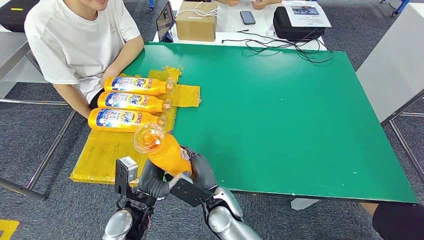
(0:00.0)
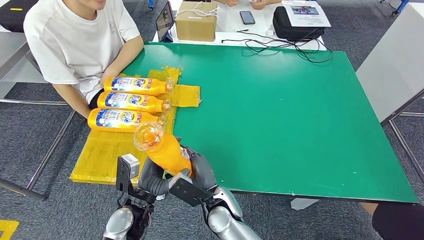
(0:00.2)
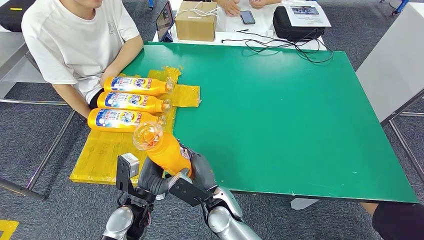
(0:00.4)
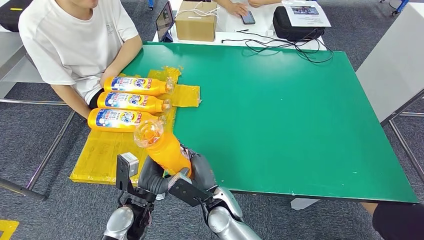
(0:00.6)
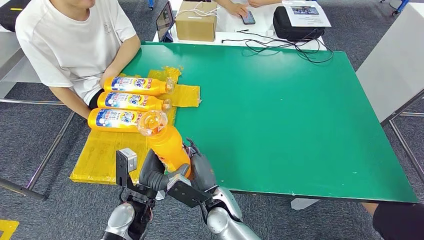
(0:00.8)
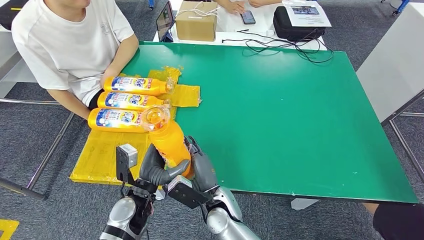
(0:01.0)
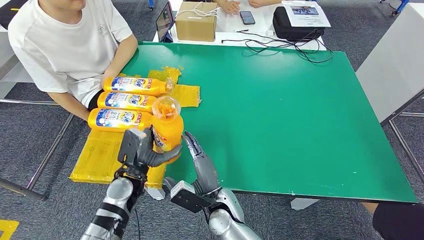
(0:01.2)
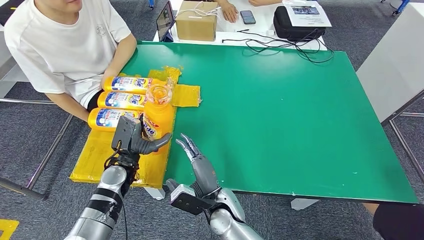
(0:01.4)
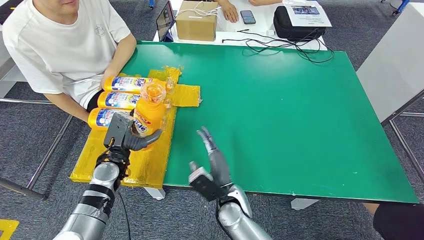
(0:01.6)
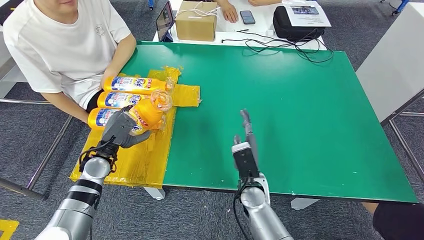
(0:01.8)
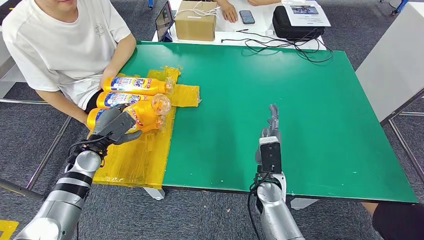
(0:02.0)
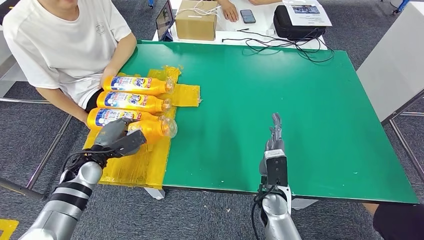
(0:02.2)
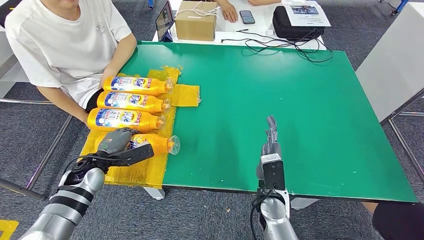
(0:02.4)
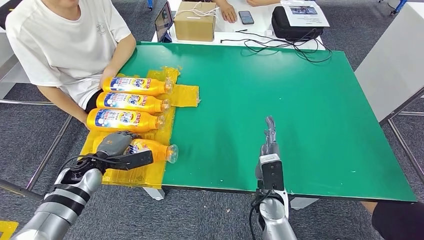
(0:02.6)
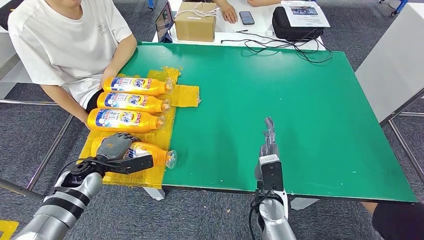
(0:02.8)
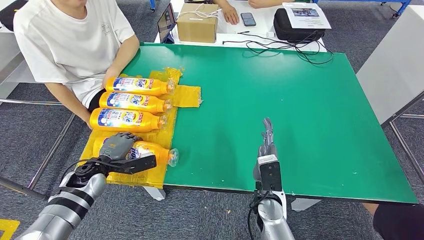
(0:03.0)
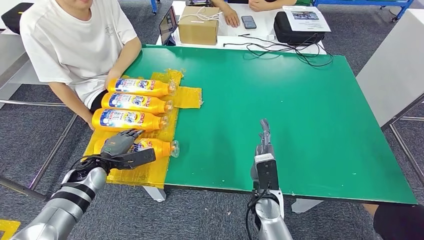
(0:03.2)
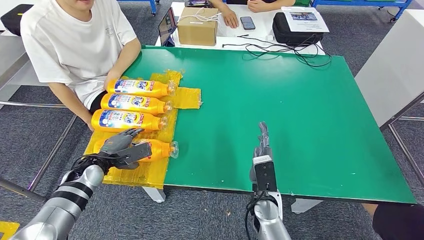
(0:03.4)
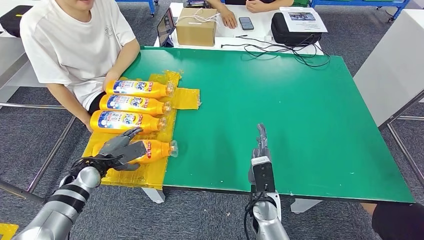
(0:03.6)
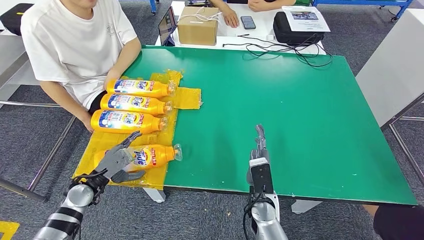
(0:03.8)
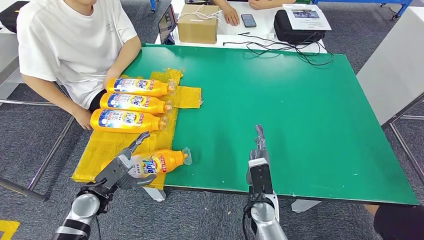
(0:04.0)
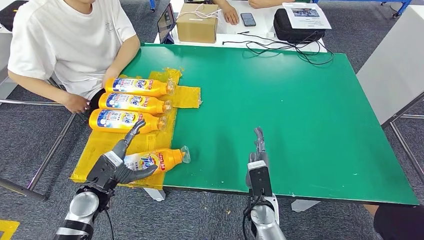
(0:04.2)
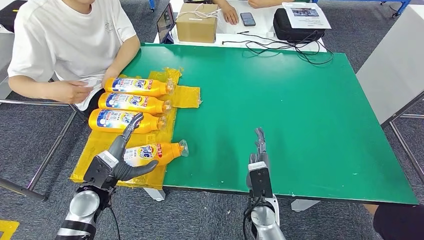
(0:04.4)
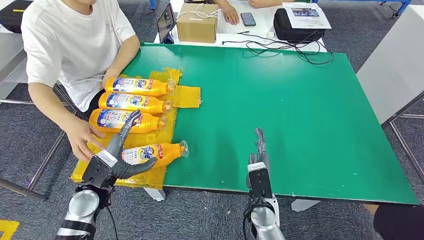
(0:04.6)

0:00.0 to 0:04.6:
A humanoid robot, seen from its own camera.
Step, 0:00.4 to 0:04.4: Flip the fast-moving consumer goods bottle to the front side.
0:03.0 to 0:04.6: The left hand travels to the right and backward by some 10 cm.

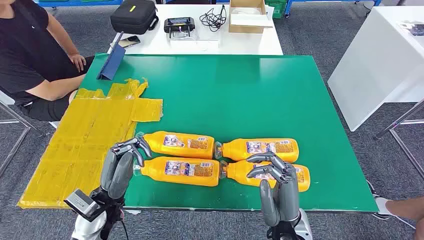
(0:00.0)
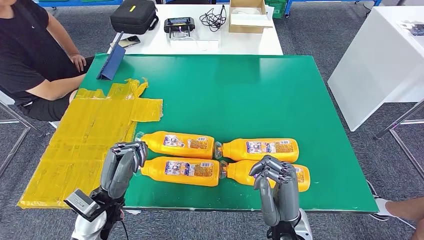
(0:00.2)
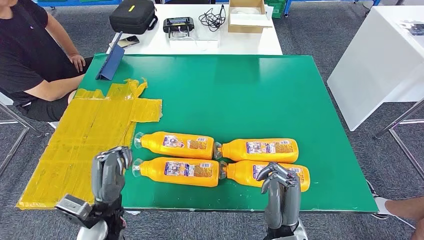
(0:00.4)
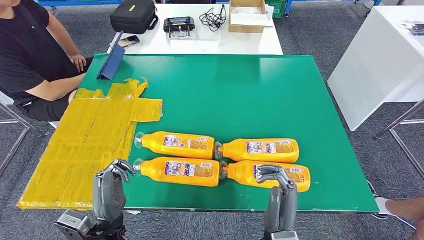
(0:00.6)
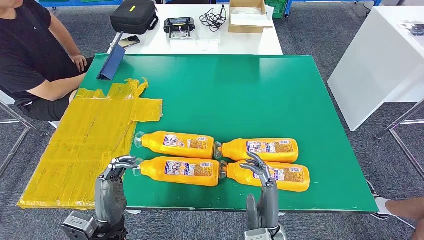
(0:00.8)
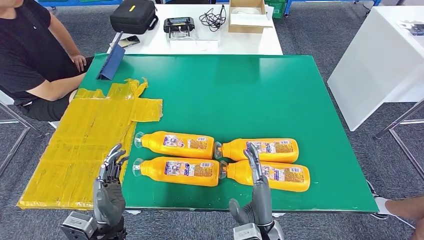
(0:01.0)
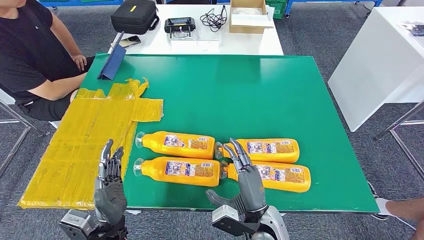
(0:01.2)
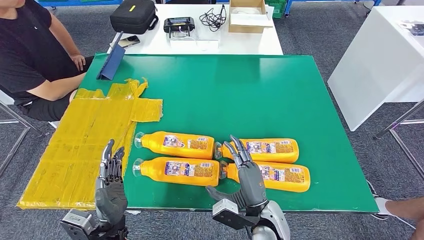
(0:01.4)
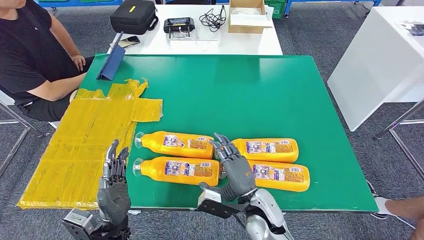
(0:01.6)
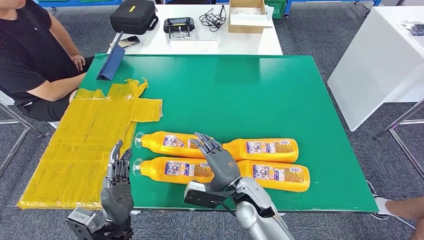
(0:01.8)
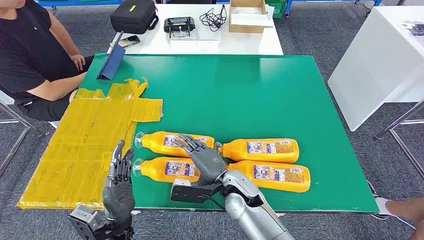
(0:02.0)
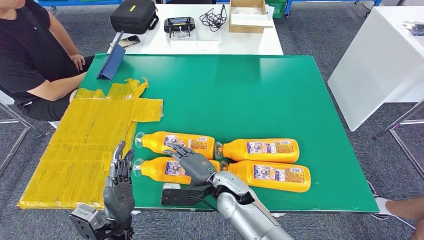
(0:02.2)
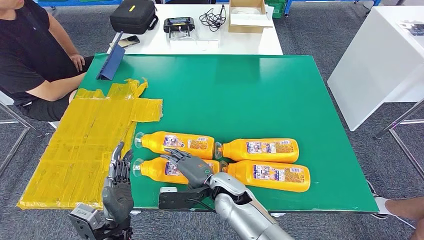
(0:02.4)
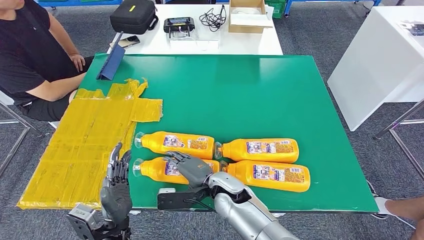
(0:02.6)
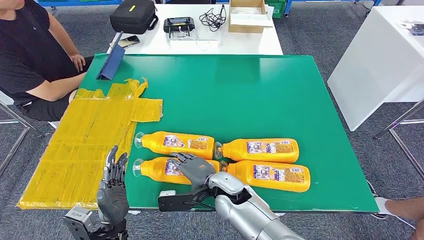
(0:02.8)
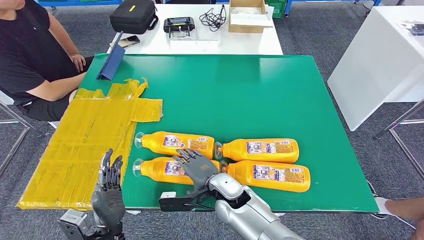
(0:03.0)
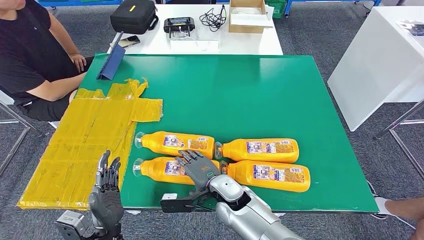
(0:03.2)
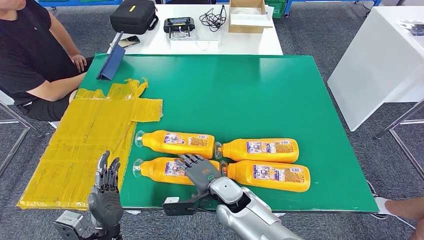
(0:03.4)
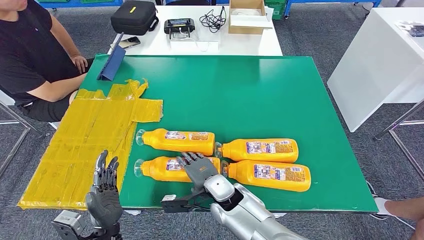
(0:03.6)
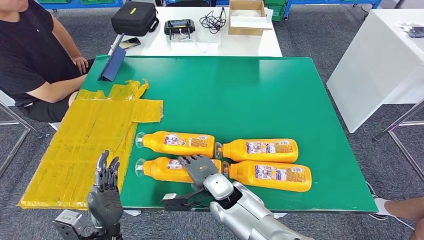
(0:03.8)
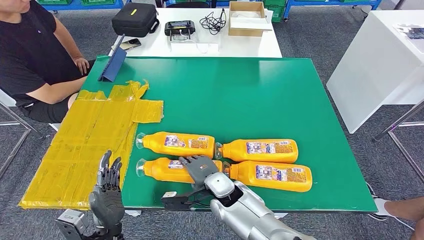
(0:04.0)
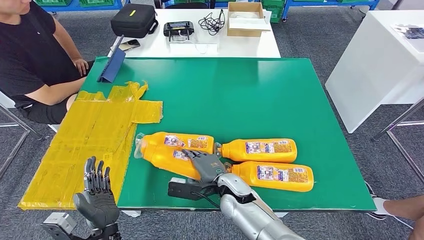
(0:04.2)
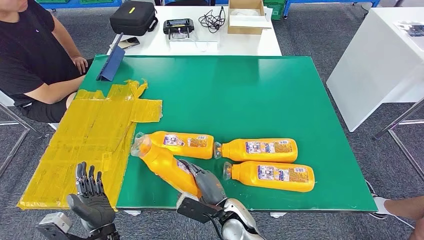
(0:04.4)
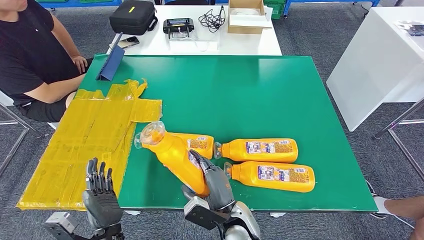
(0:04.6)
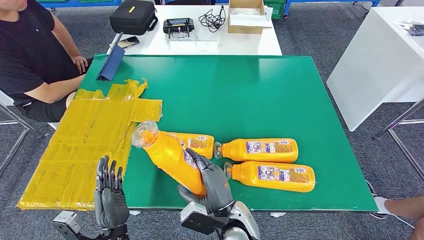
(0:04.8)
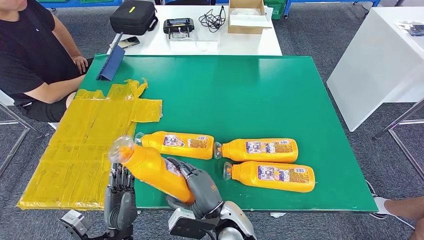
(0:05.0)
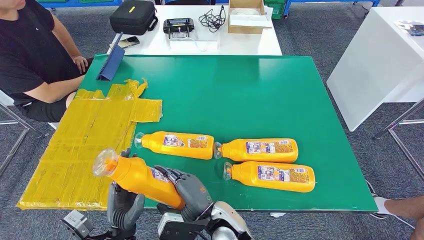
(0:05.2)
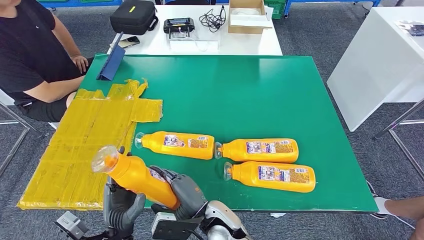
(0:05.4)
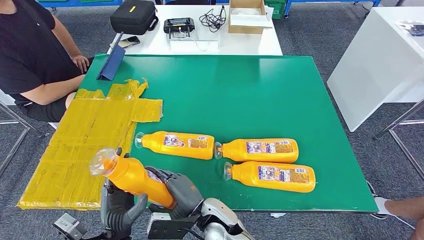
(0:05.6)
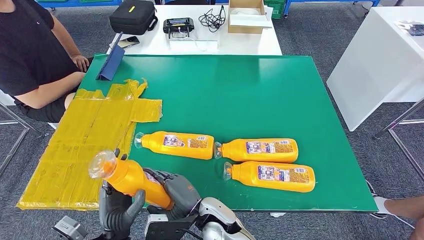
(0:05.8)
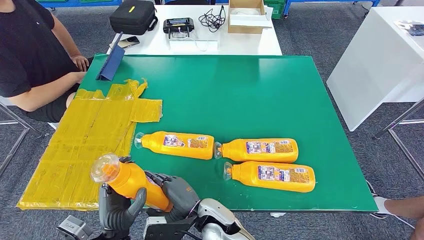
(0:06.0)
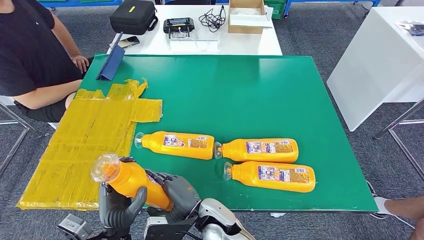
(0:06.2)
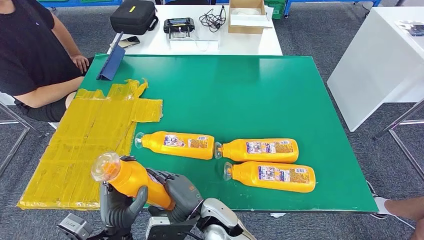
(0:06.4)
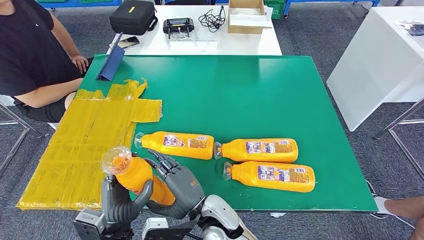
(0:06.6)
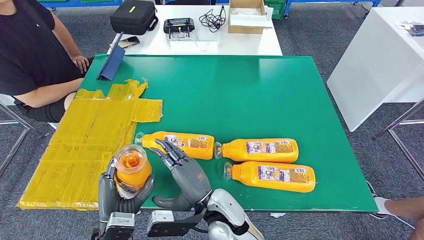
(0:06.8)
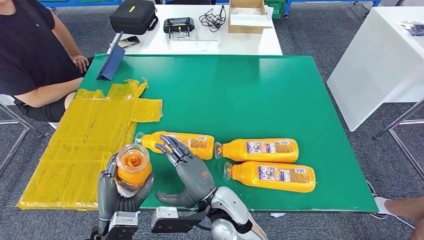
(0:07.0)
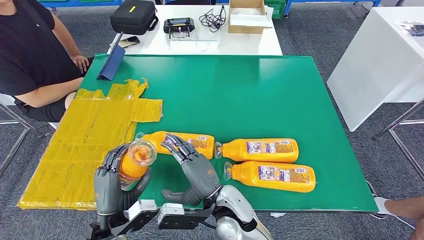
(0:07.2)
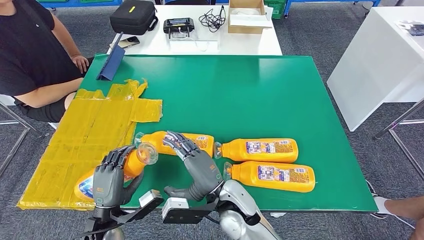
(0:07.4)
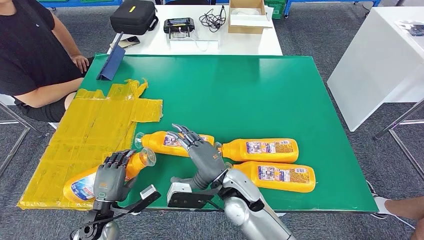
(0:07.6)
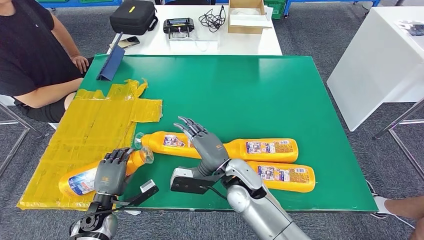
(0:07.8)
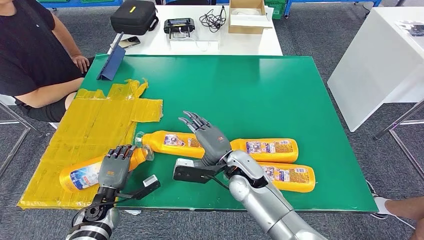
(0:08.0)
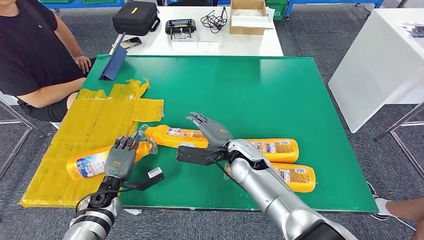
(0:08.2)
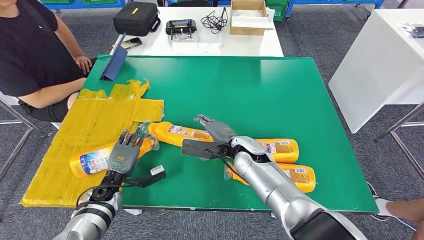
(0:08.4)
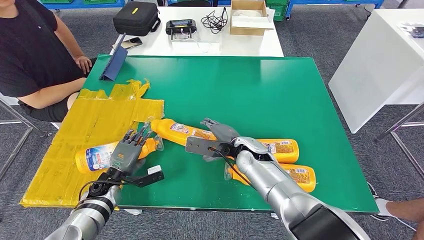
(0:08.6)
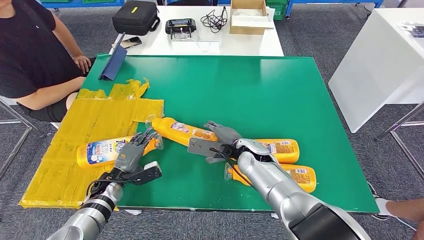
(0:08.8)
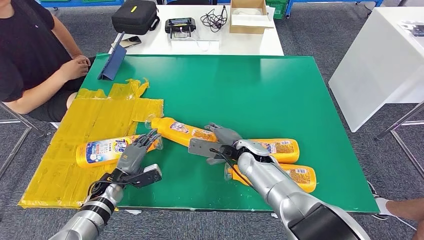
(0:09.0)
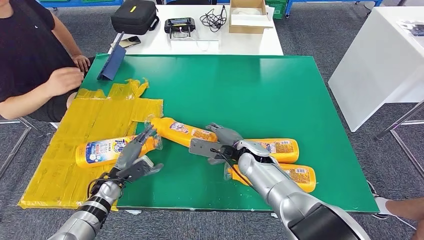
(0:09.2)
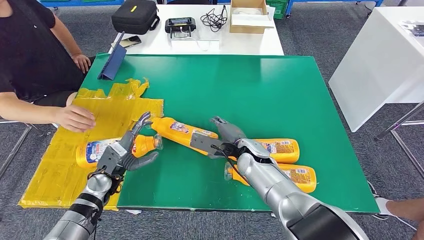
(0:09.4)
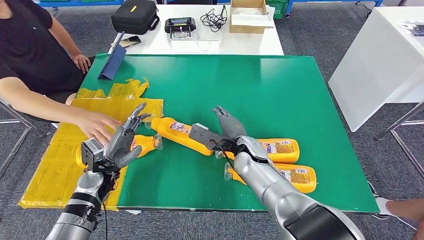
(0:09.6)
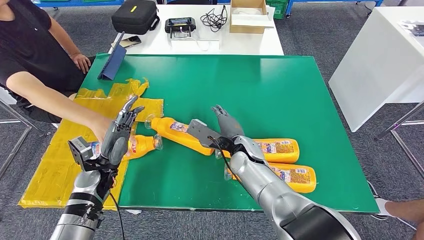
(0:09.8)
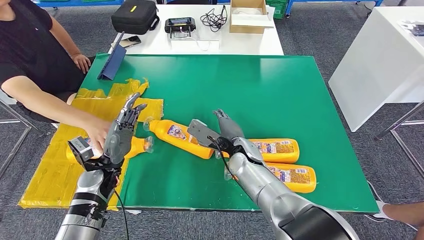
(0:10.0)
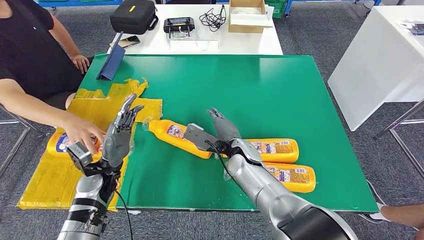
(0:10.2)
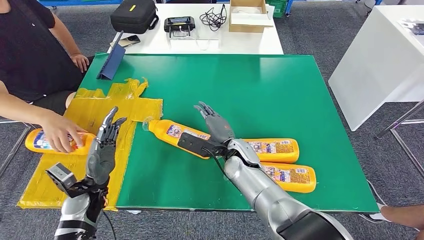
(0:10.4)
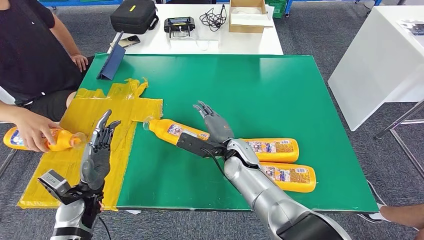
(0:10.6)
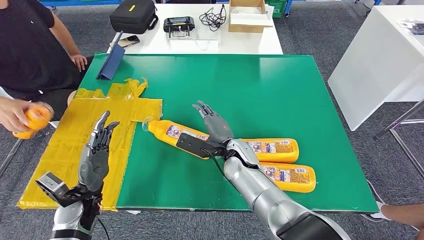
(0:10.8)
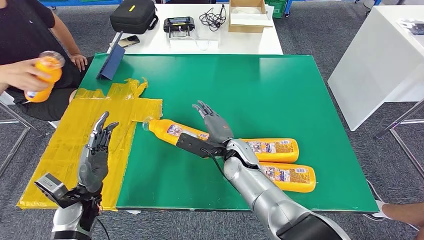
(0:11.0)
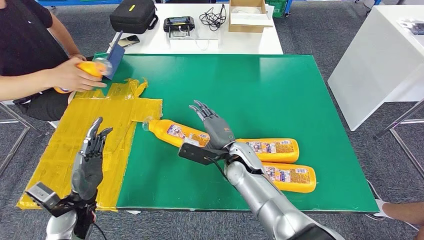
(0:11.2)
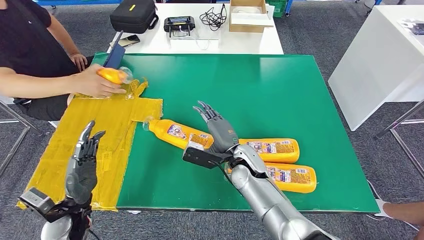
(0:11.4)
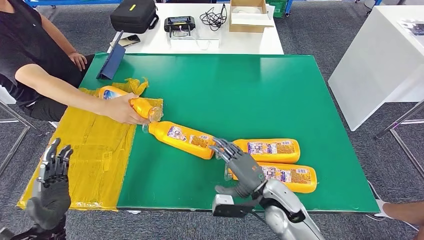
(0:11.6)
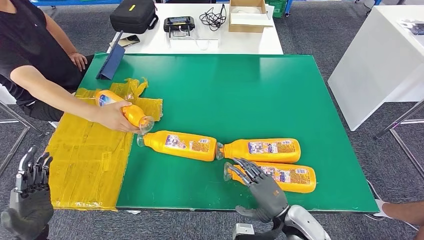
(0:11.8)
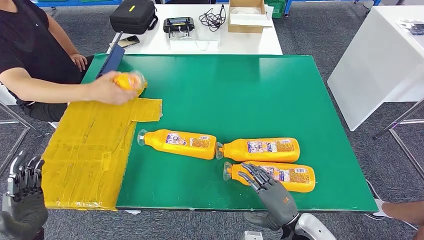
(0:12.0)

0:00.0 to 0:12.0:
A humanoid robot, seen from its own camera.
Step, 0:00.0 to 0:05.0: Take the fast-moving consumer goods bottle from the table.
Step, 0:05.4 to 0:10.2: Flip the fast-moving consumer goods bottle to the front side.
0:01.6 to 0:03.0: The right hand goes some 10 cm to the left.
0:03.0 to 0:04.4: The right hand moves backward, approximately 5 cm.
0:04.4 to 0:06.0: The right hand shifts about 5 cm to the left.
0:06.0 to 0:07.6: The right hand travels forward, to the right and upward by roughly 10 cm. Meanwhile the left hand goes about 10 cm to the left and forward.
